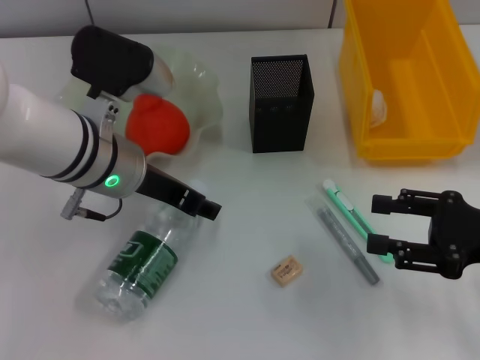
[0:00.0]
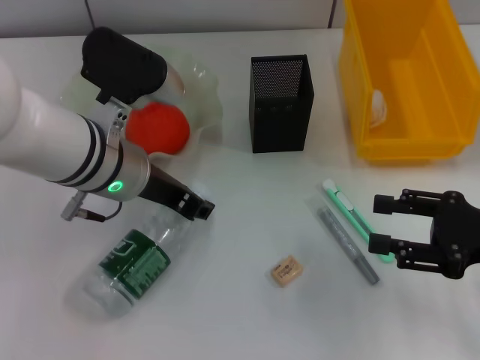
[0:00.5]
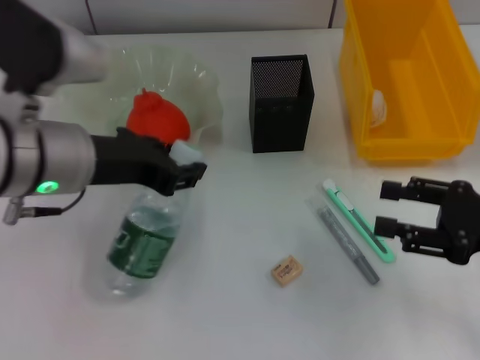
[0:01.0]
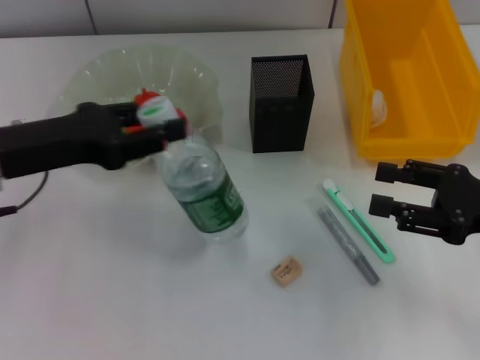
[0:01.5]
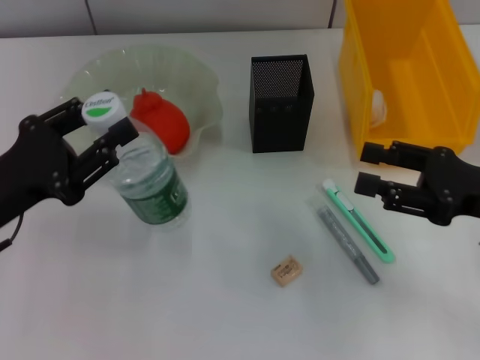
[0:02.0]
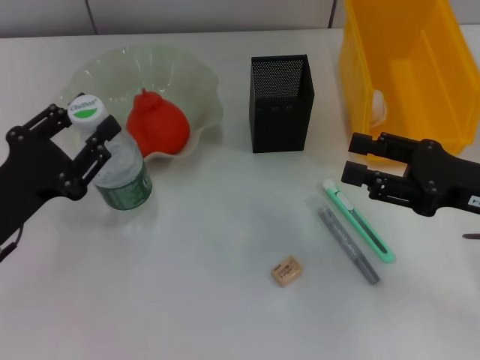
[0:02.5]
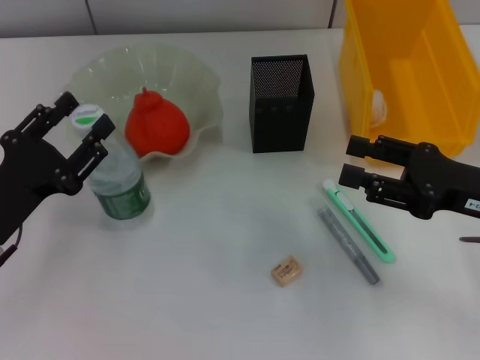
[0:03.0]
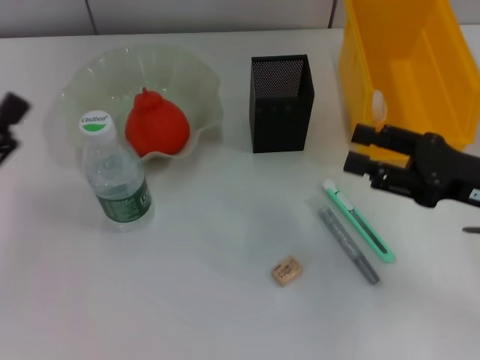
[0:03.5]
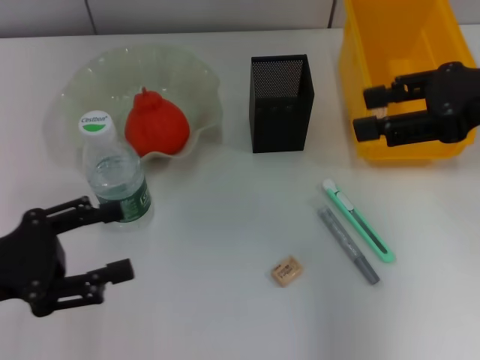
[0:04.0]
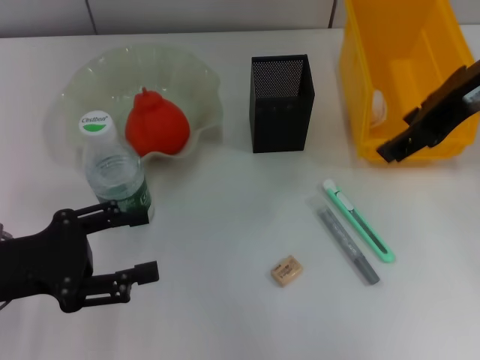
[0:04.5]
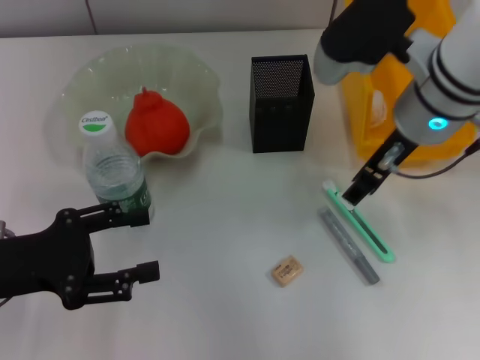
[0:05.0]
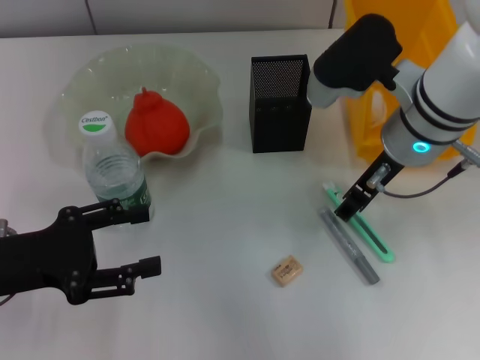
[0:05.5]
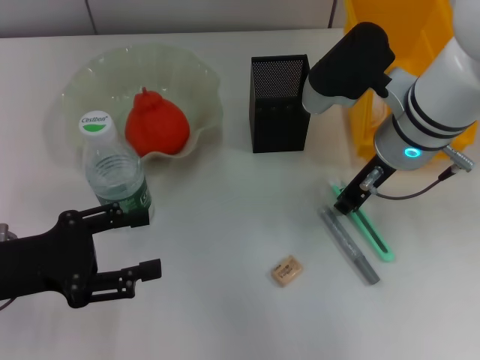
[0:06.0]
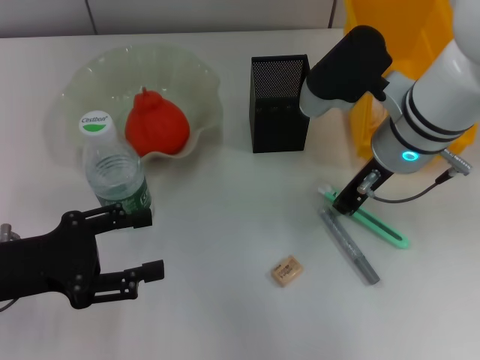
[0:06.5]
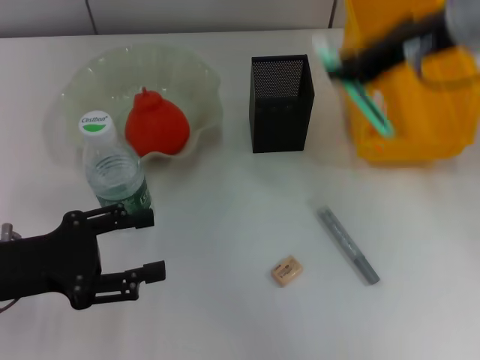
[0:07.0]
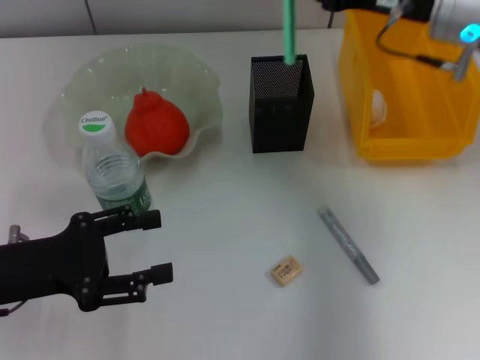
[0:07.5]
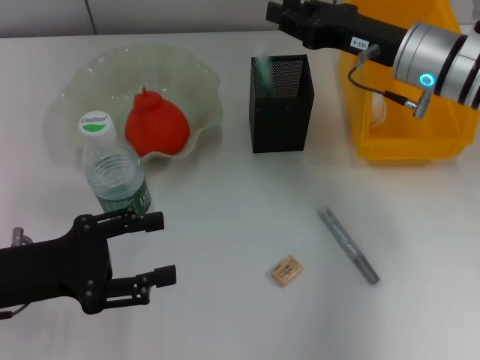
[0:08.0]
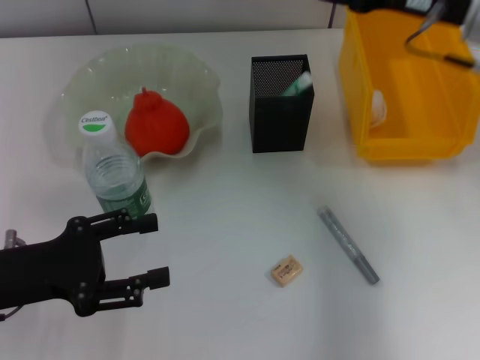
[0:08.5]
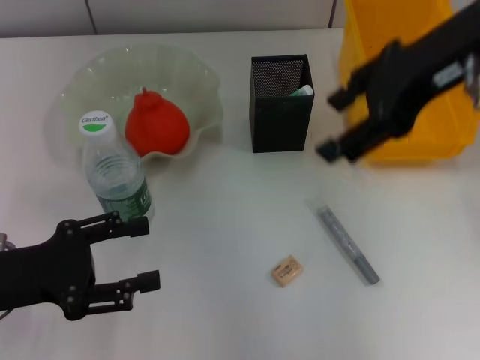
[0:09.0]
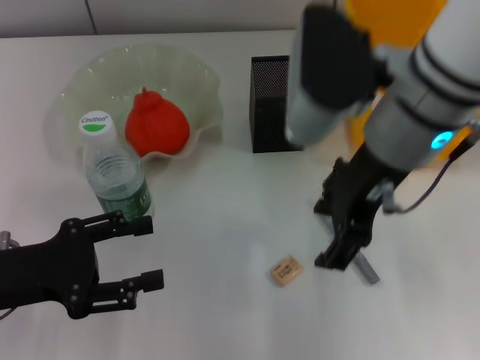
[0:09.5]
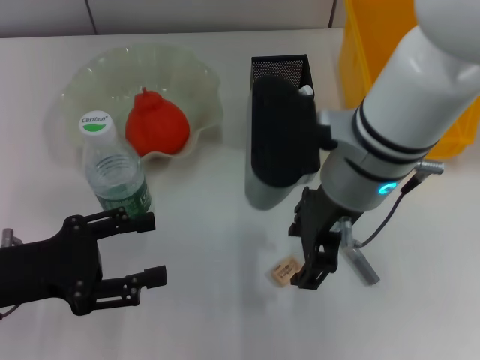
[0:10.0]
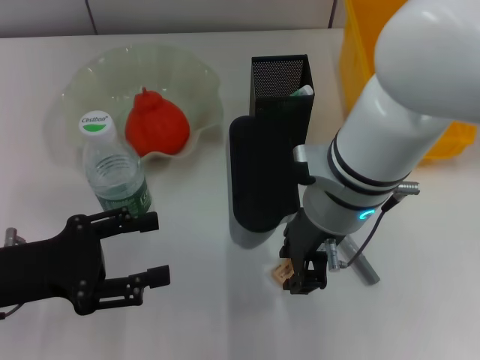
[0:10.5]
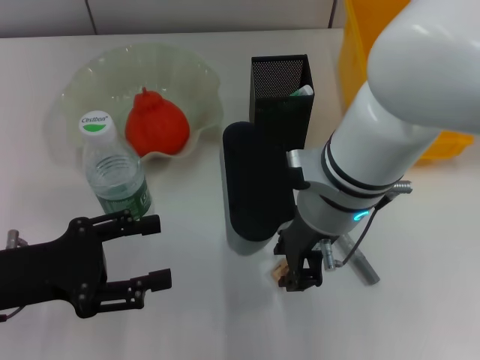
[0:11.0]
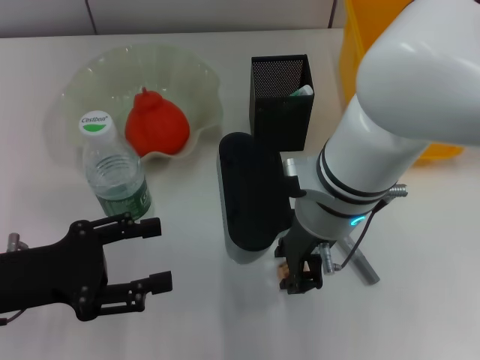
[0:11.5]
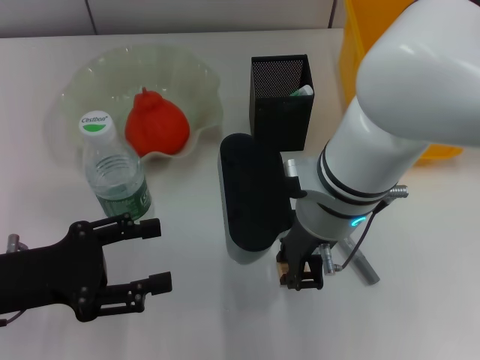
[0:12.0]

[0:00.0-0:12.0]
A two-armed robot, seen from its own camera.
Step, 0:00.5 to 0:03.0: Place the water bottle on the table with the left hand.
Step, 0:03.5 to 0:06.0: Grab the blue utility knife with the right hand.
Step, 0:06.5 to 0:08.0: Place the blue utility knife into the pen holder with the right hand.
Step, 0:08.5 to 0:11.5: Grab the eraser with the right hand.
0:00.0 to 0:02.0: The left gripper shifts about 15 cm to the left and backward, and closes its fingers.
0:02.0 to 0:04.0: The right gripper moves upward, approximately 15 cm; the left gripper opens its fingers.
0:04.0 to 0:06.0: The right gripper shifts some 15 cm to the left and downward.
0:06.0 to 0:08.0: The right gripper moves to the right, some 5 cm, moves approximately 15 cm upward and comes back, and closes up.
0:08.0 to 0:10.0: The right gripper goes some 15 cm to the left and backward, moves roughly 15 cm upward and comes back, and opens its fingers.
0:10.0 to 0:12.0: The right gripper closes up.

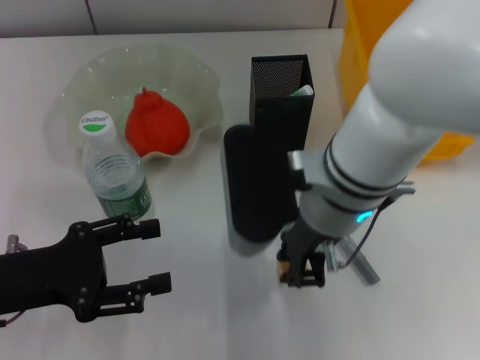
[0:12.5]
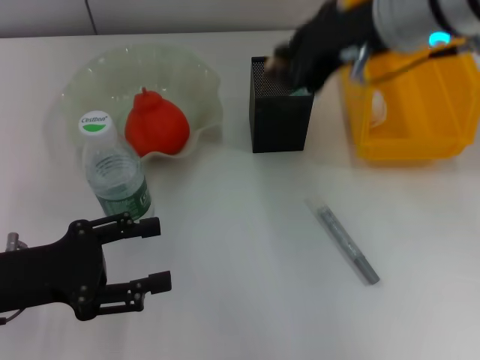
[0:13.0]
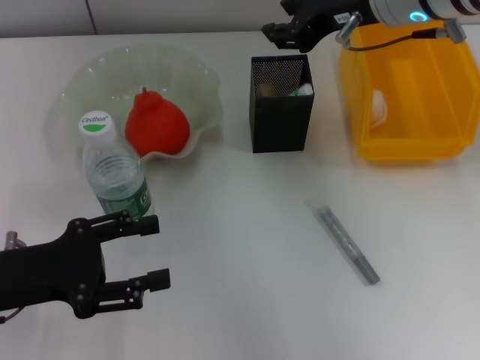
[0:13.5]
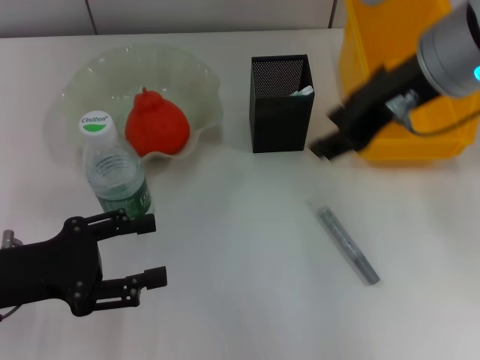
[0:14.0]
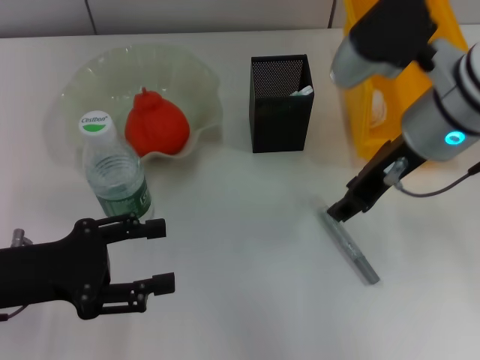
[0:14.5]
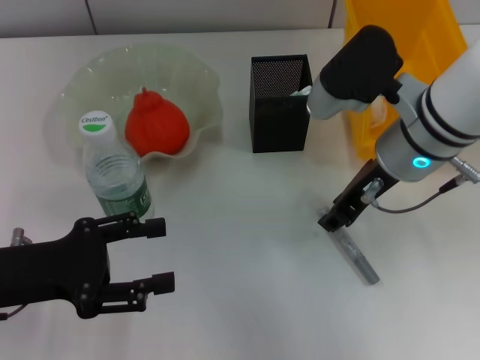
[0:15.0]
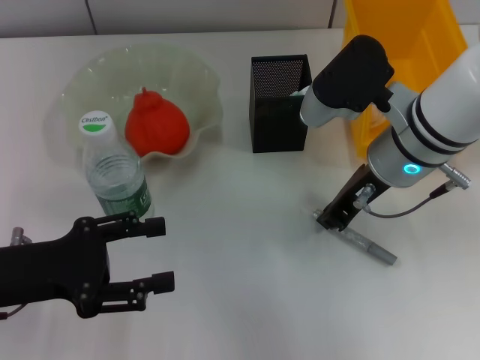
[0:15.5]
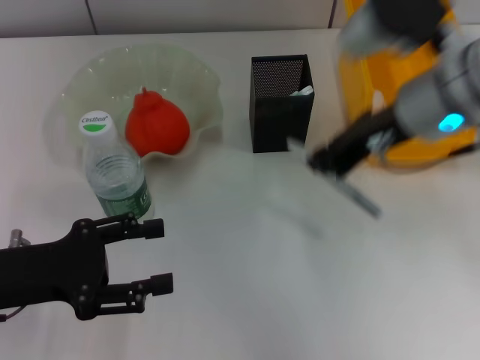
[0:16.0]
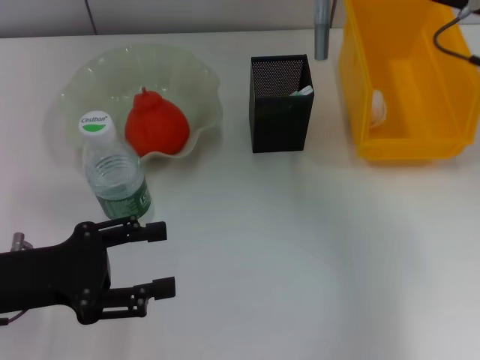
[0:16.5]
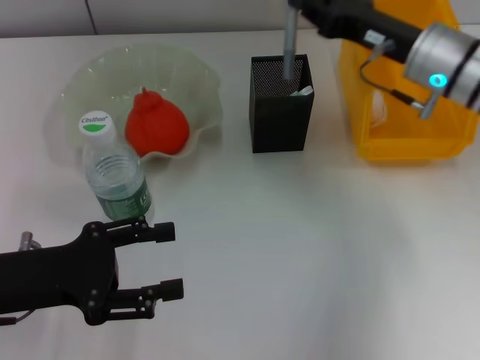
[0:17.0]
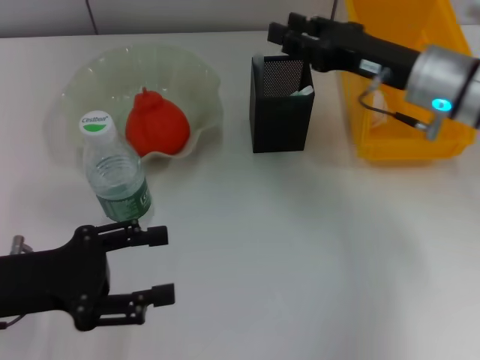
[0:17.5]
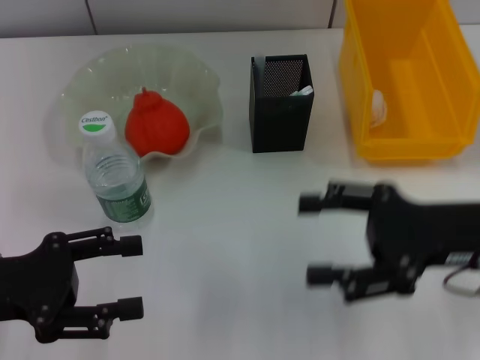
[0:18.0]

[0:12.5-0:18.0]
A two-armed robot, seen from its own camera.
Step, 0:12.5 to 0:13.5: Put the eraser into the pen holder with the right hand.
Step, 0:14.0 to 0:15.5: Grab the gray glue with the right hand.
Step, 0:16.0 to 0:17.0: Place the gray glue into the pen holder with the right hand.
0:12.5 to 0:14.5: The right gripper goes approximately 10 cm to the right, reaches some 10 cm upward, then returns, and opens up.
0:14.5 to 0:16.0: The right gripper closes its fingers.
0:16.0 to 0:18.0: The right gripper goes approximately 15 cm downward, backward and to the right, and opens.
